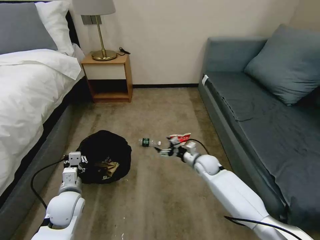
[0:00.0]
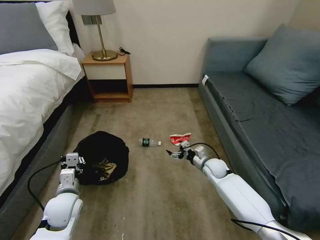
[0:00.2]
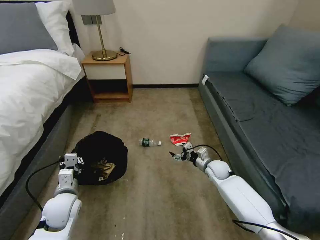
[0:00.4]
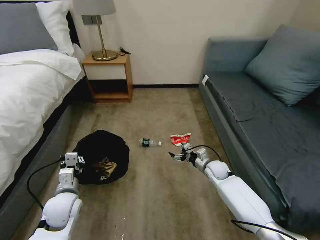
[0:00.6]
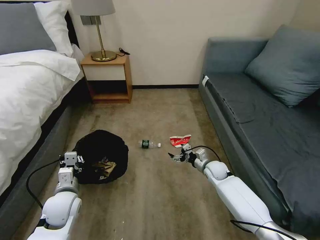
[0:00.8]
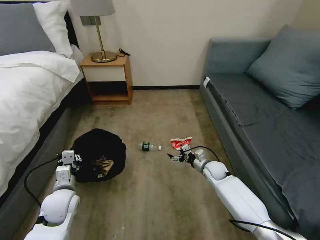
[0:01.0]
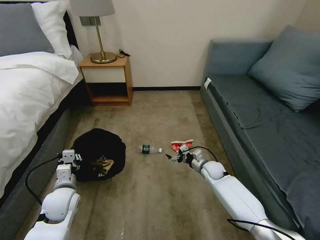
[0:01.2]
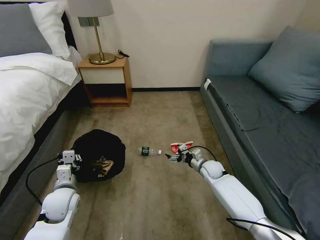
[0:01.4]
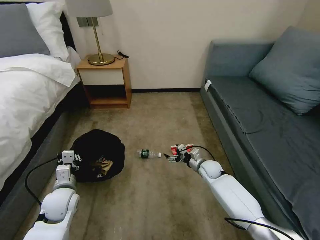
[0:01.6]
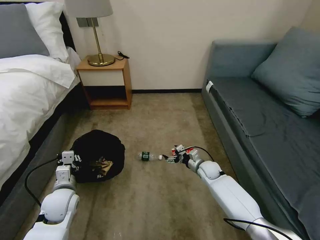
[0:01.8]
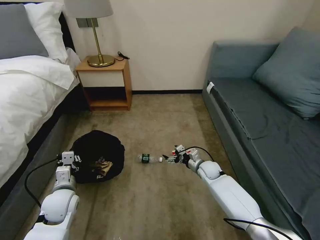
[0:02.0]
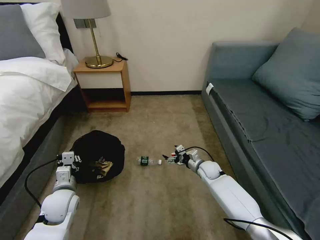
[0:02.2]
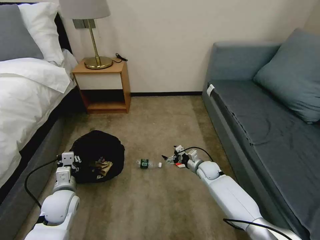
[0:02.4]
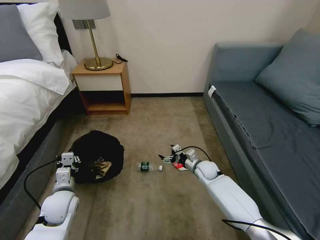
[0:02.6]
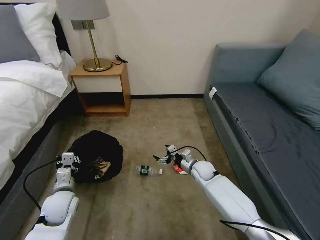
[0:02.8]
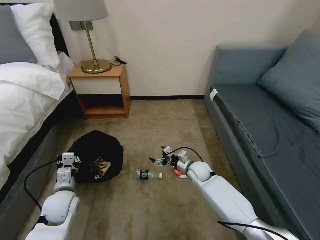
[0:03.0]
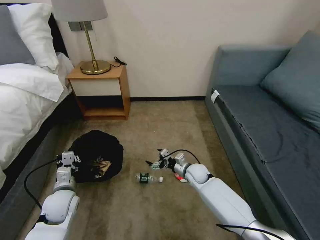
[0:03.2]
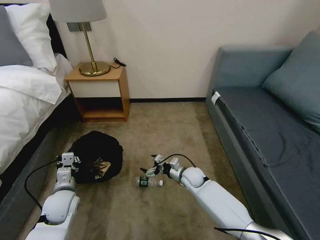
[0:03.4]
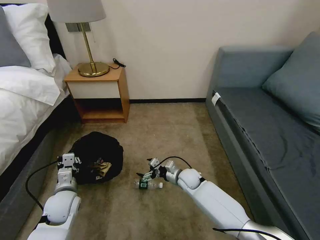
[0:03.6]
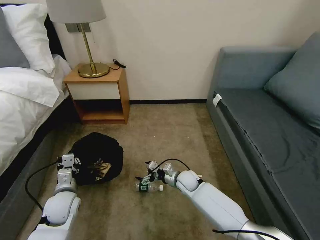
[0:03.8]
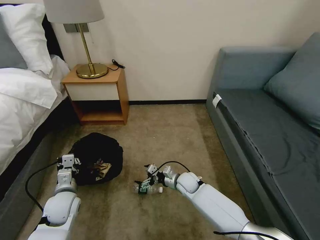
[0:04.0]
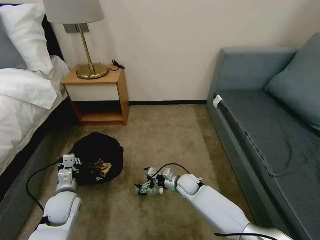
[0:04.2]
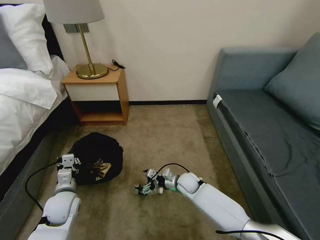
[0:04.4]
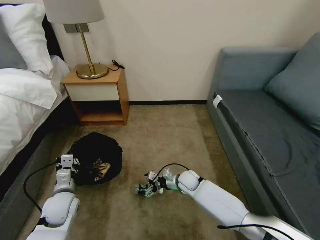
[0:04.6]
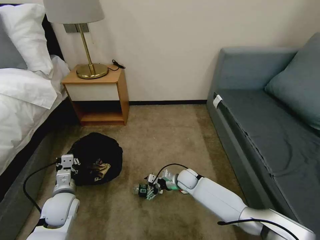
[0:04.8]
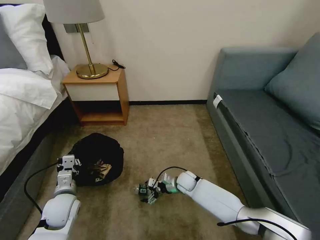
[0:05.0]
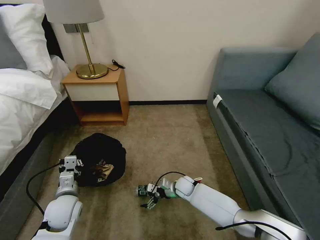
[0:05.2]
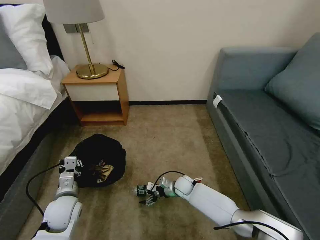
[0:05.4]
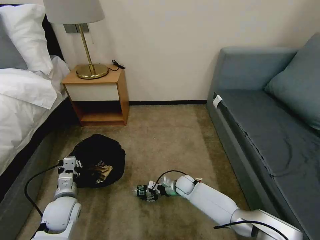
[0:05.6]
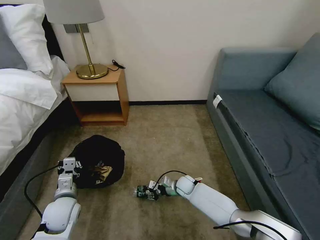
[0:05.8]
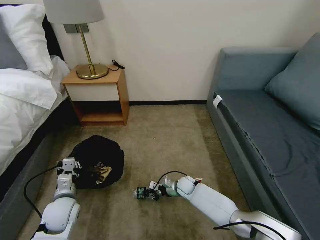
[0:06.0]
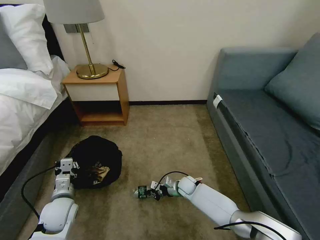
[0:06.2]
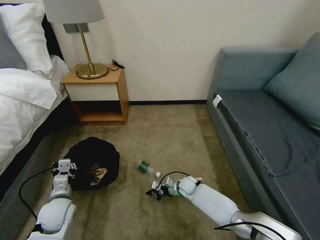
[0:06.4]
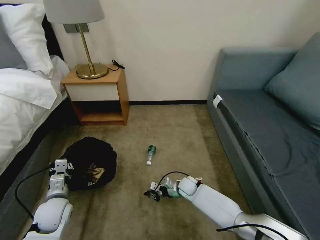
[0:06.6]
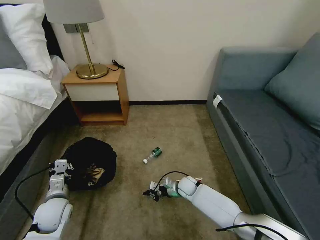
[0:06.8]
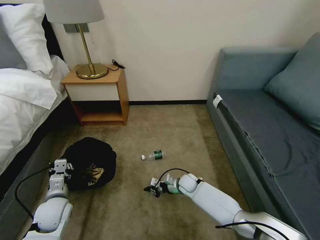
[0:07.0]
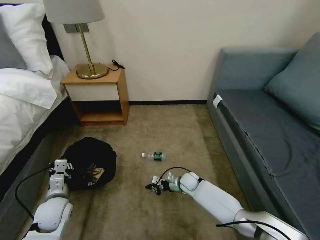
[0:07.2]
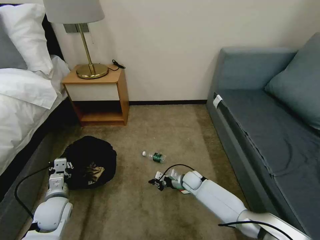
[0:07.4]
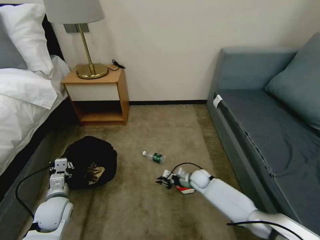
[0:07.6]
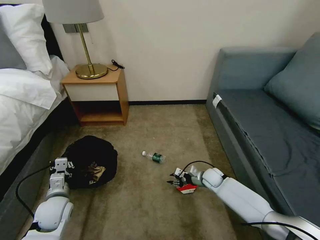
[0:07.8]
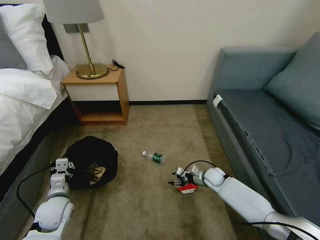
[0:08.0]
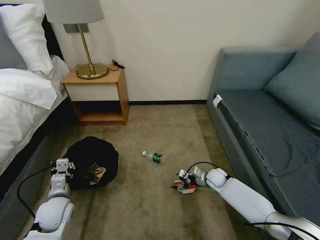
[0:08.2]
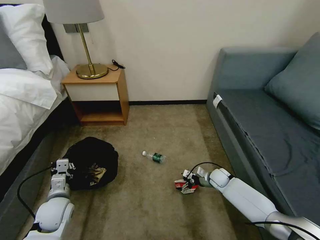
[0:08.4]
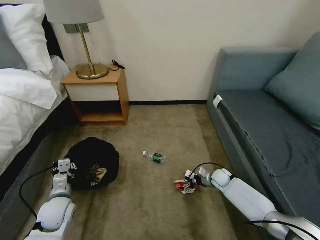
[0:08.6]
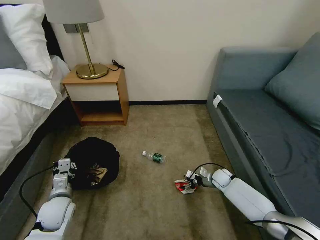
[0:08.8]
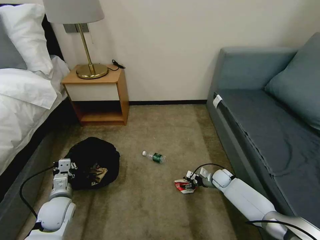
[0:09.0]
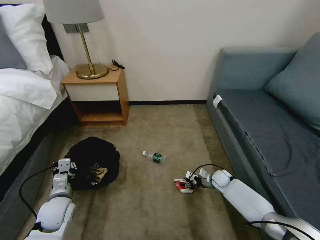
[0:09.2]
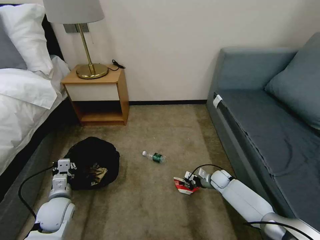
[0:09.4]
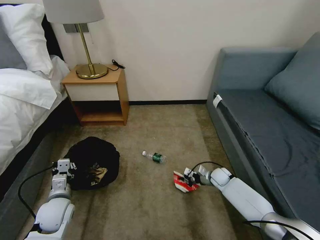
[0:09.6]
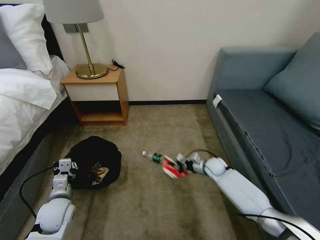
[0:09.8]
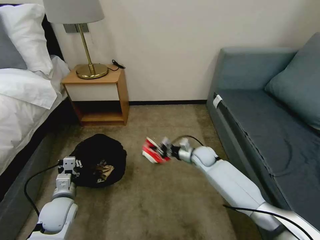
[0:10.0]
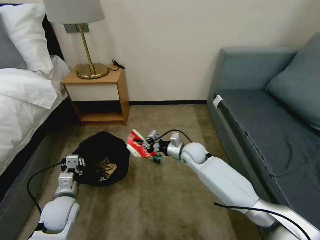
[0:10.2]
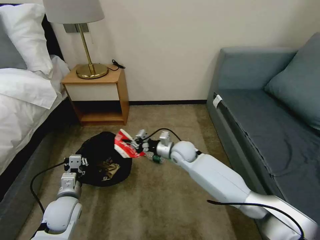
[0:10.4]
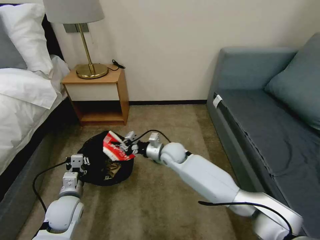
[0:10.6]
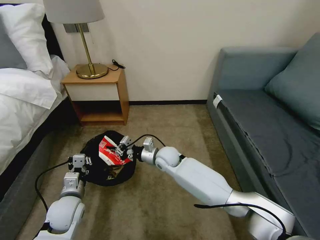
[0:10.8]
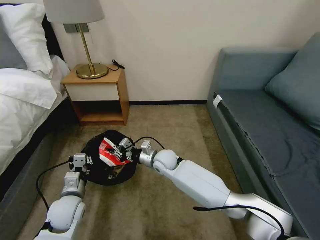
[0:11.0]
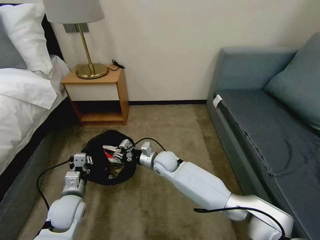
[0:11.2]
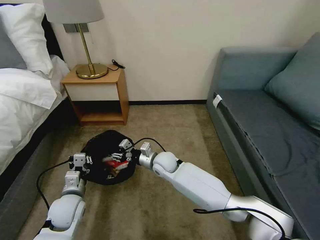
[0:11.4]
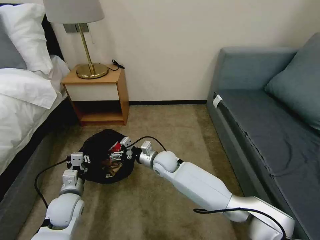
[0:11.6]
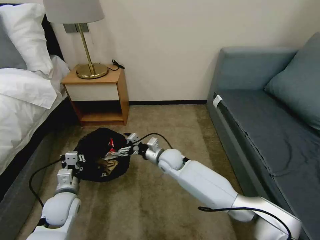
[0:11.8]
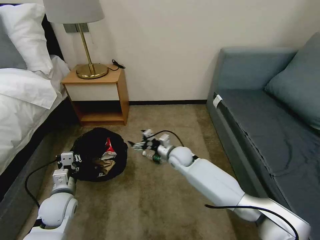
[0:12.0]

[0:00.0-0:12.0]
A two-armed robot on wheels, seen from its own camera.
Task of the whole recording: Pick up the trash bin, then pick up the garbage on the floor and place it into the trash bin.
0:00.0 to 0:01.6: The right gripper travels downward by approximately 5 cm.
0:01.6 to 0:03.0: The right gripper travels to the left by about 5 cm.
0:03.0 to 0:04.4: The right gripper moves about 5 cm.
0:04.4 to 0:06.0: The right gripper moves downward, roughly 5 cm, and closes its fingers.
0:06.0 to 0:07.6: The right gripper travels to the right by approximately 5 cm.
0:07.6 to 0:09.0: The right gripper shifts some 10 cm to the right, and opens up.
0:09.0 to 0:10.4: The right gripper moves to the left and upward, about 30 cm, and closes.
0:10.4 to 0:12.0: The right gripper moves roughly 10 cm to the left and comes back, and opens.

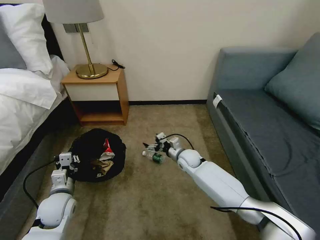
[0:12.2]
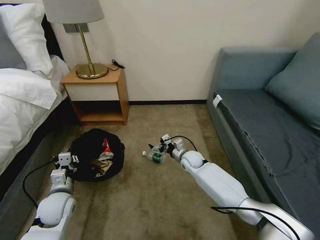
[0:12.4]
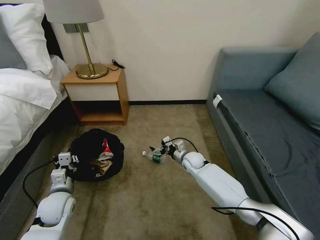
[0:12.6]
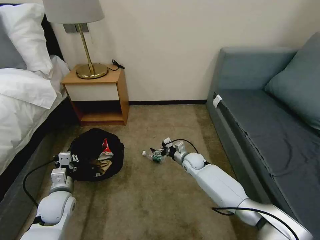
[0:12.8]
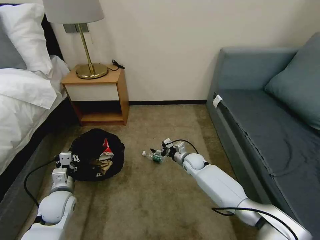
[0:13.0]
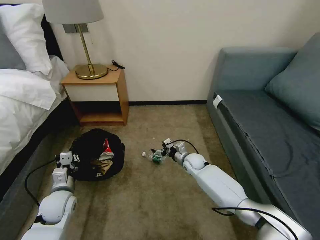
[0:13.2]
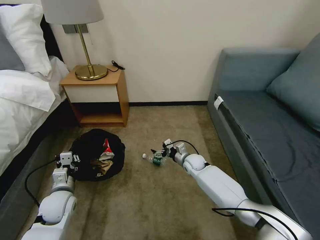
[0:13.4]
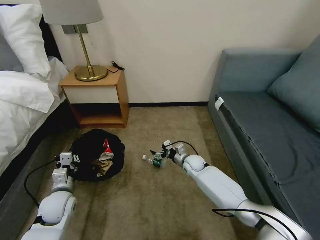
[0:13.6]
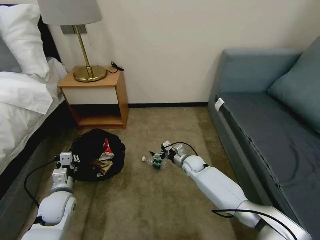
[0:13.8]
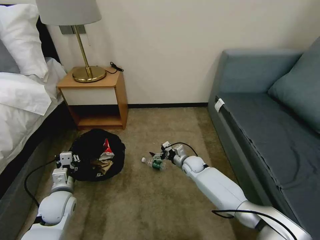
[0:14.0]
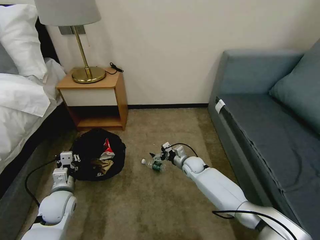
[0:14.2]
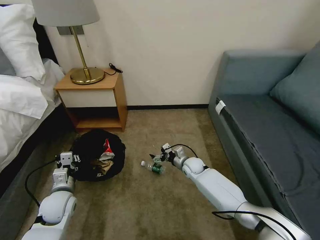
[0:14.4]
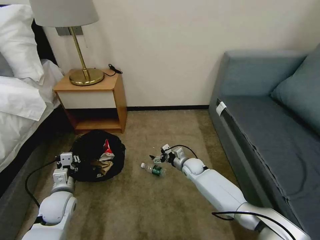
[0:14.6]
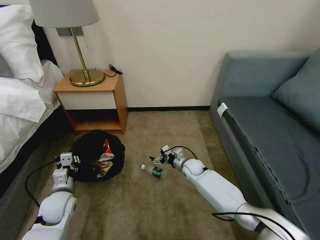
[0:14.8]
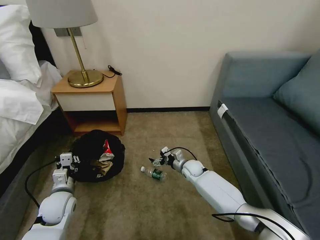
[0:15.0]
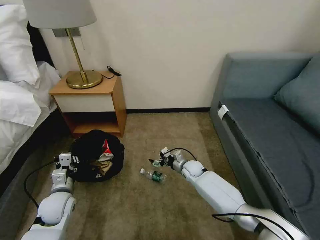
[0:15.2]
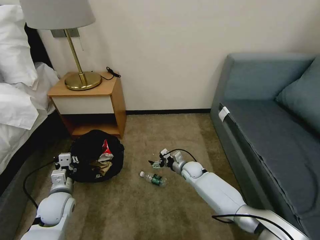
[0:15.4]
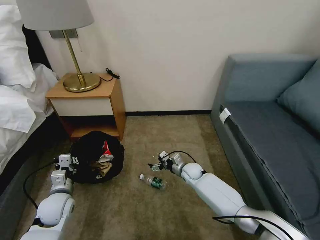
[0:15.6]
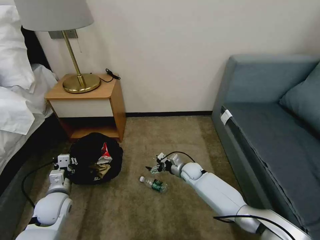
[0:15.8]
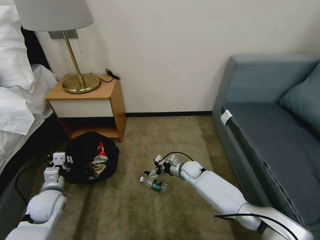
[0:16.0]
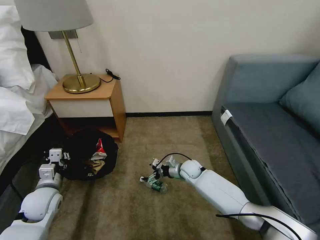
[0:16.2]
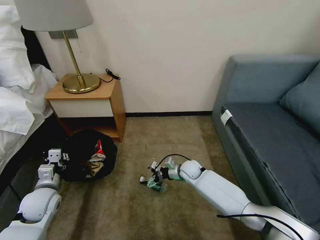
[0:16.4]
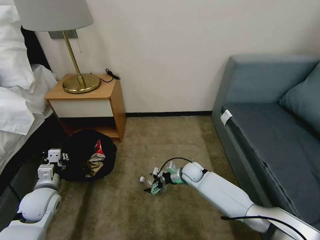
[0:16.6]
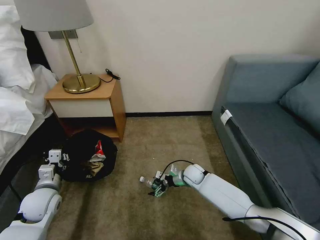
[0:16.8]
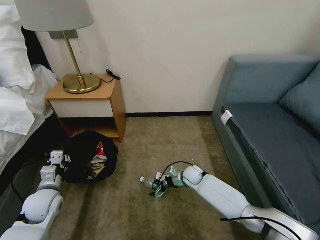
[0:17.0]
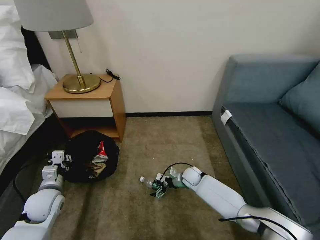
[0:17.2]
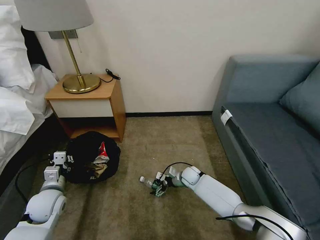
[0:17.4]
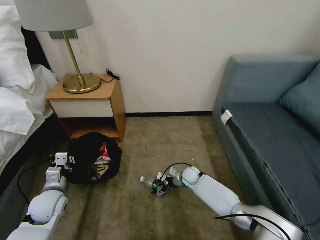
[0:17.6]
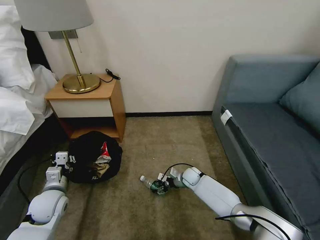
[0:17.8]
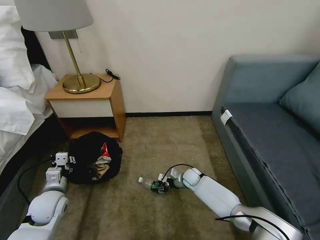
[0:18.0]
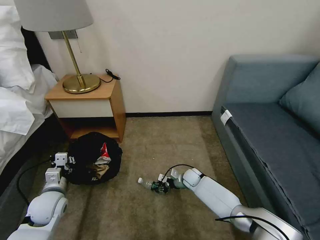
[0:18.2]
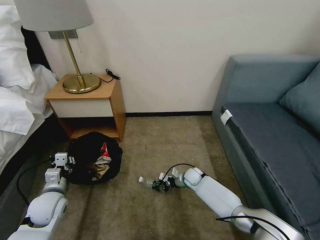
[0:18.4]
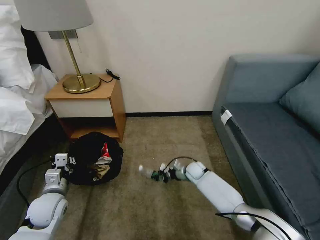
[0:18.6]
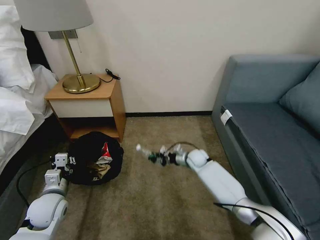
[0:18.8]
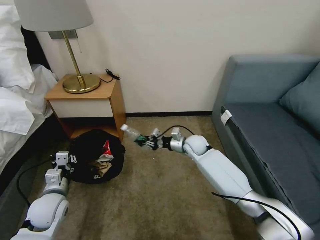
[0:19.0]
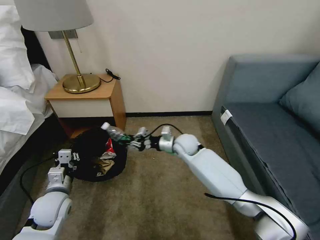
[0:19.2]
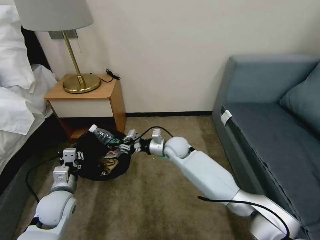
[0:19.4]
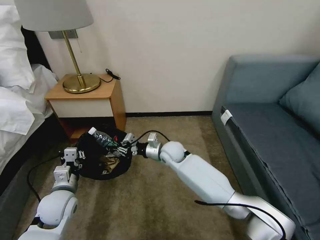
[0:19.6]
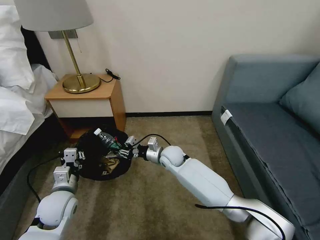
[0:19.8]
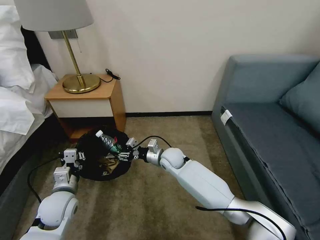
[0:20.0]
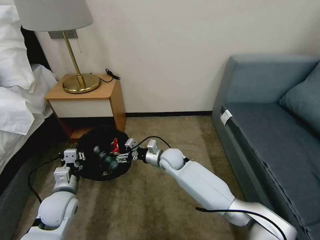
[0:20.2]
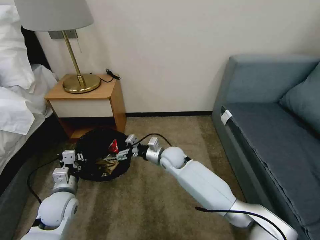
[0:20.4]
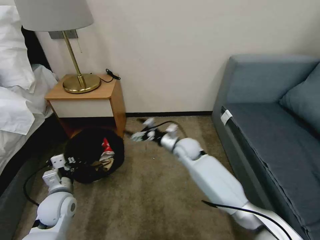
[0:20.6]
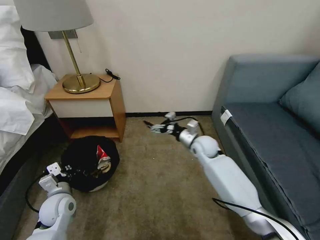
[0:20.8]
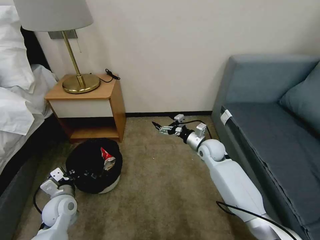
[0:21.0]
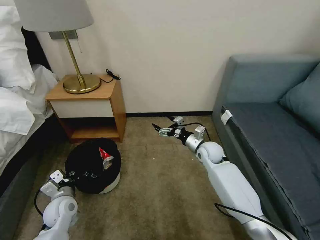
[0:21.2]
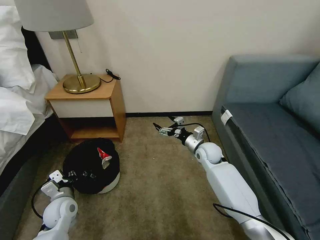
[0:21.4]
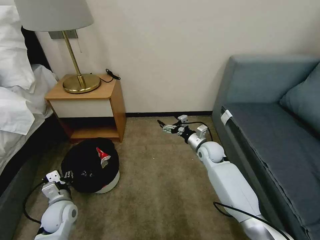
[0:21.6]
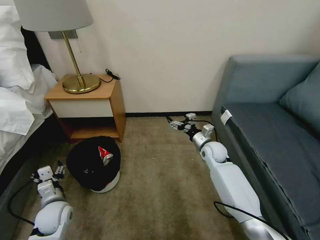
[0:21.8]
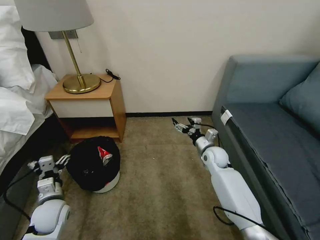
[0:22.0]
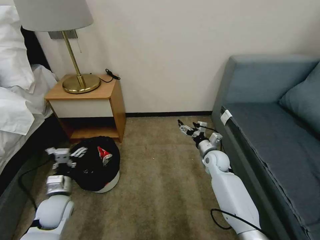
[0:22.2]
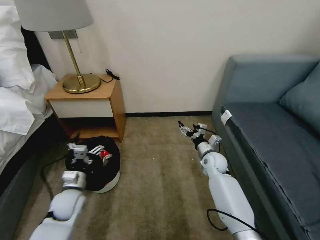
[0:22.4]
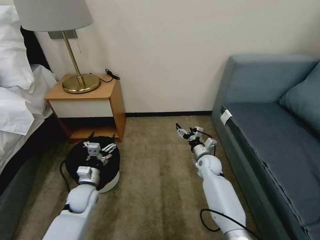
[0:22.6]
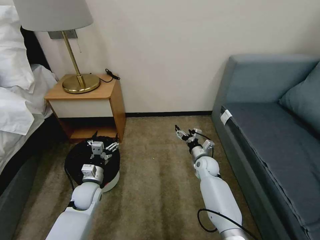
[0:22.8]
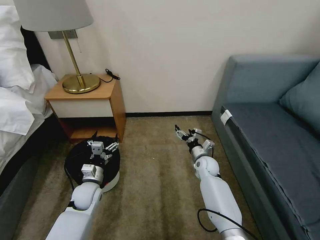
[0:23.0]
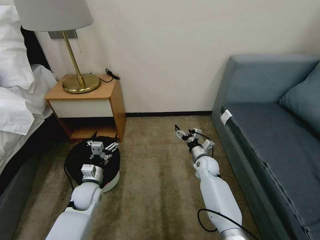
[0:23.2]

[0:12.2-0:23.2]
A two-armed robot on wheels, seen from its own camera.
Task of the whole recording: Pick up the trash bin, then pick up the garbage on the floor and place it into the trash bin.
0:12.2 to 0:13.8: The right gripper is displaced downward by some 5 cm.
0:17.0 to 0:18.4: The right gripper closes its fingers.
0:18.4 to 0:20.0: The left gripper moves approximately 5 cm. Meanwhile the right gripper goes some 20 cm upward and to the left, and opens up.
0:20.0 to 0:21.6: The left gripper heads downward, covering roughly 5 cm, and opens up; the right gripper moves to the right, roughly 15 cm, and opens.
0:21.6 to 0:23.2: The left gripper moves to the right and forward, roughly 10 cm, and opens; the right gripper goes some 10 cm downward.
